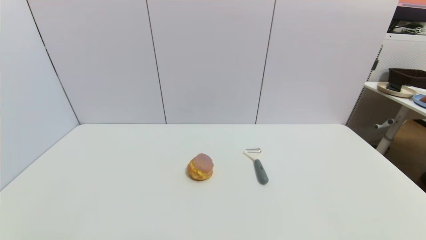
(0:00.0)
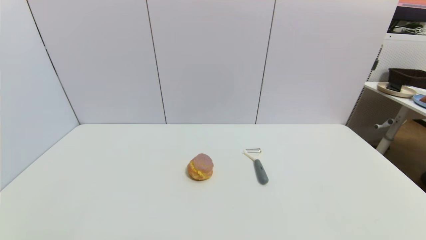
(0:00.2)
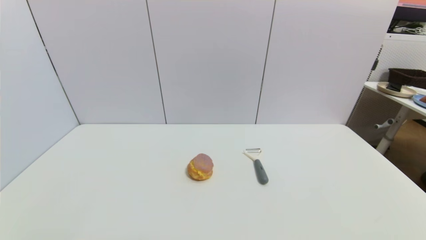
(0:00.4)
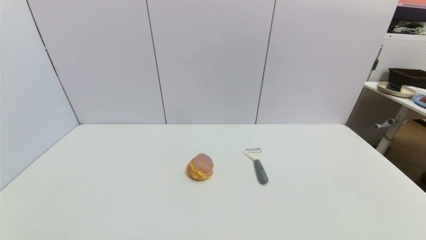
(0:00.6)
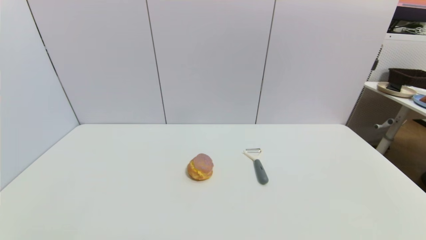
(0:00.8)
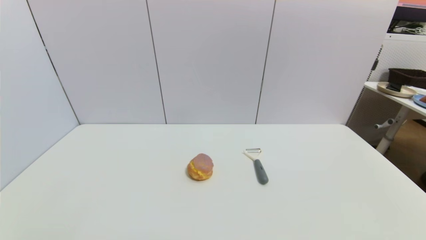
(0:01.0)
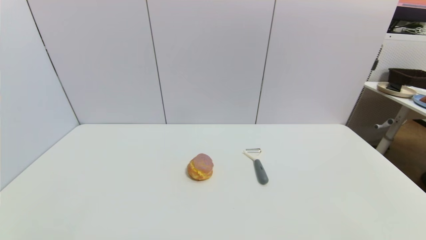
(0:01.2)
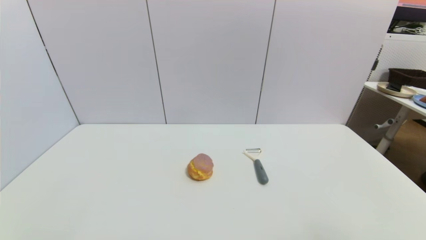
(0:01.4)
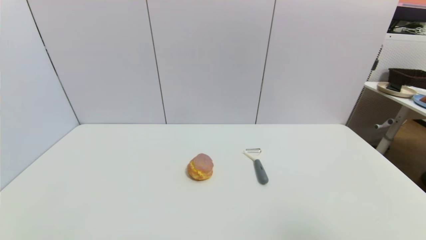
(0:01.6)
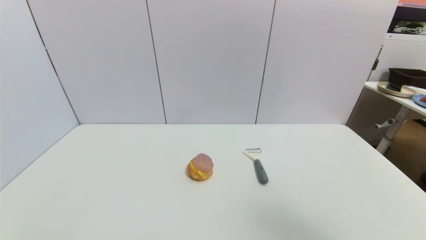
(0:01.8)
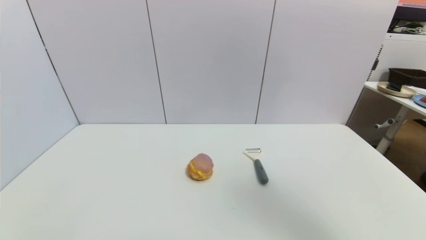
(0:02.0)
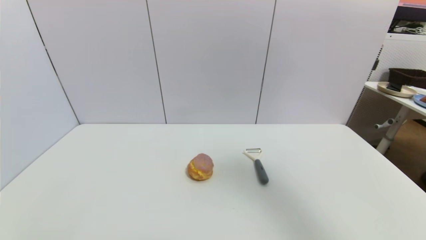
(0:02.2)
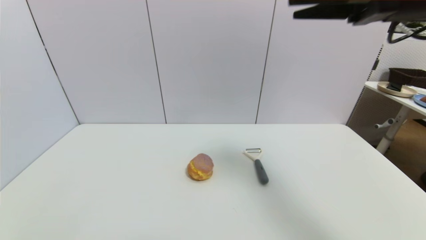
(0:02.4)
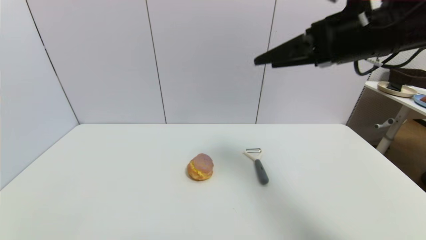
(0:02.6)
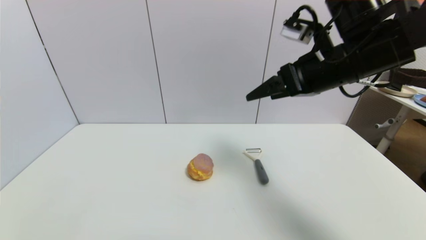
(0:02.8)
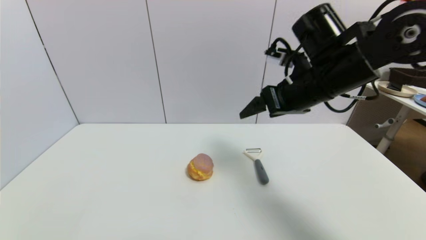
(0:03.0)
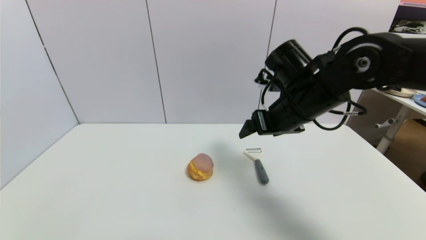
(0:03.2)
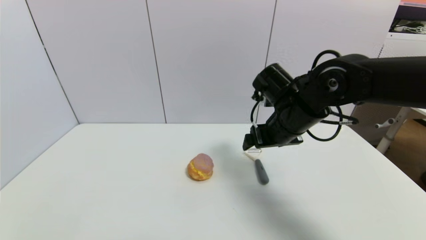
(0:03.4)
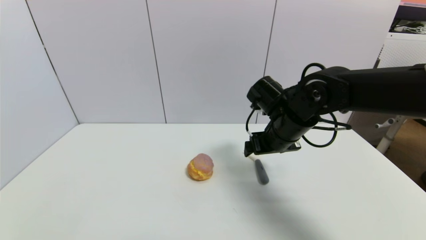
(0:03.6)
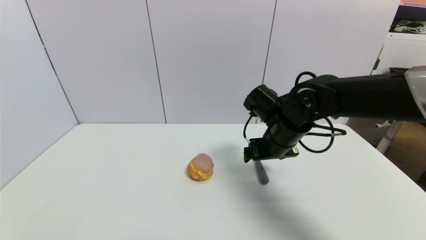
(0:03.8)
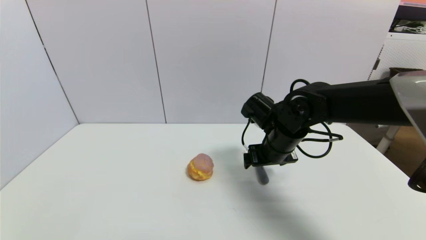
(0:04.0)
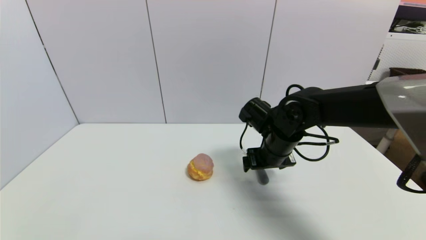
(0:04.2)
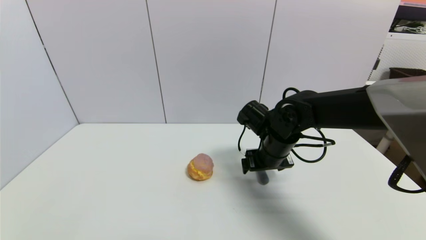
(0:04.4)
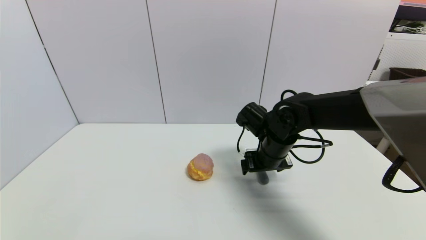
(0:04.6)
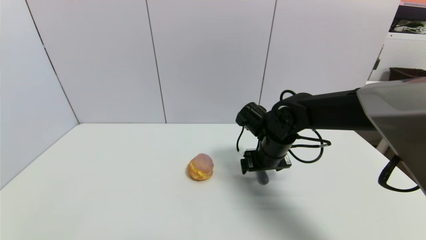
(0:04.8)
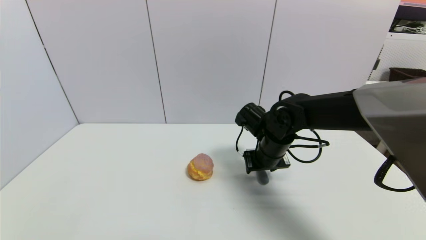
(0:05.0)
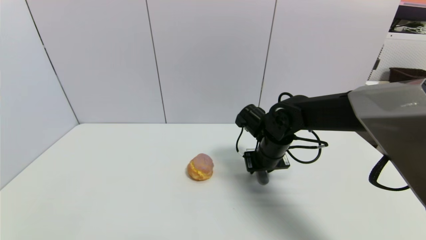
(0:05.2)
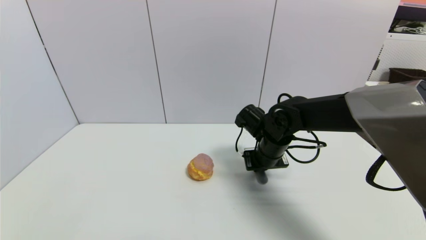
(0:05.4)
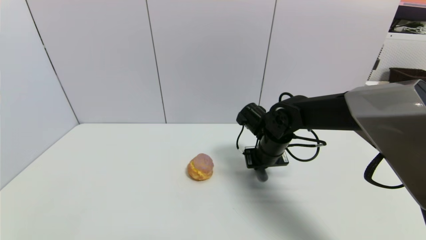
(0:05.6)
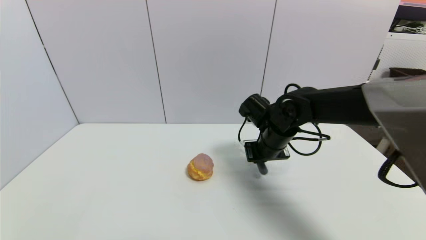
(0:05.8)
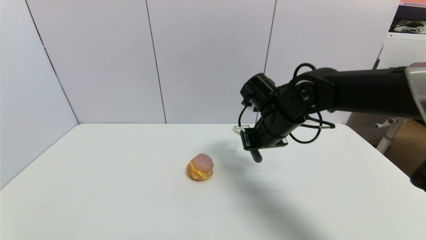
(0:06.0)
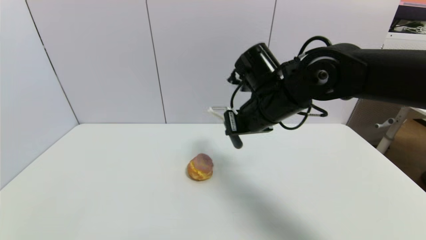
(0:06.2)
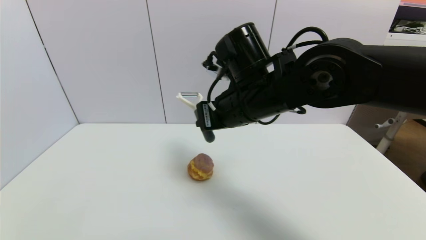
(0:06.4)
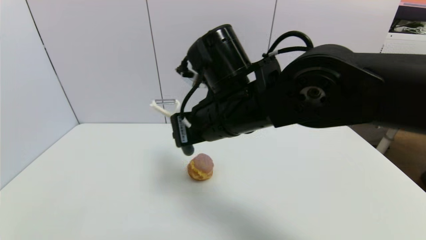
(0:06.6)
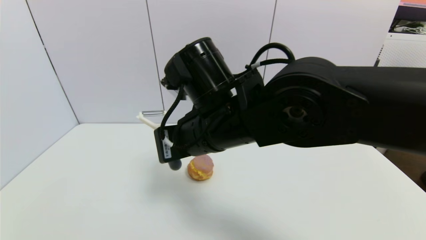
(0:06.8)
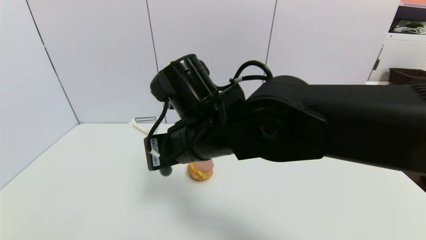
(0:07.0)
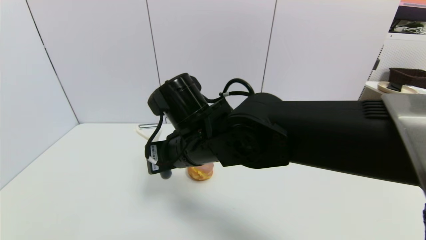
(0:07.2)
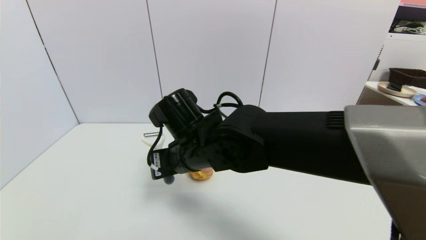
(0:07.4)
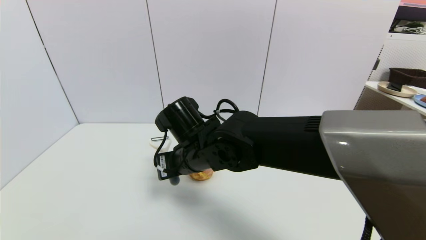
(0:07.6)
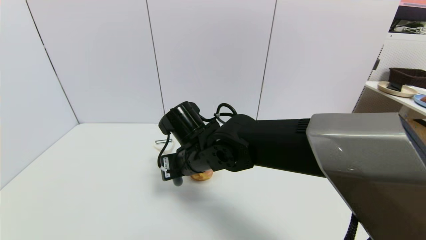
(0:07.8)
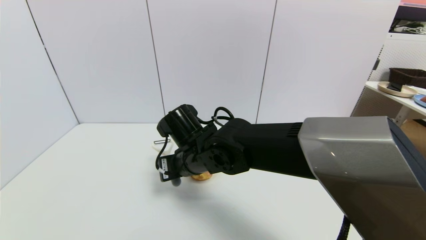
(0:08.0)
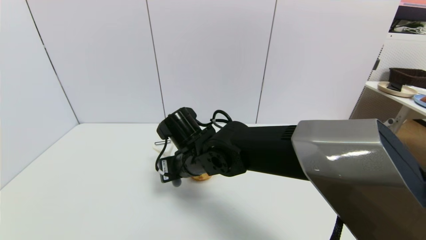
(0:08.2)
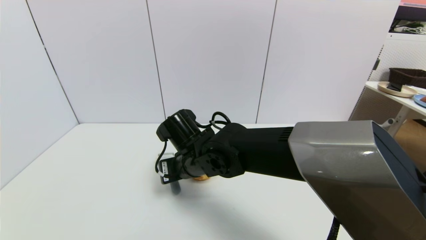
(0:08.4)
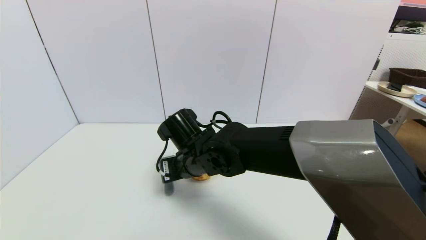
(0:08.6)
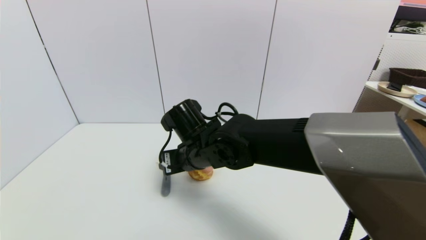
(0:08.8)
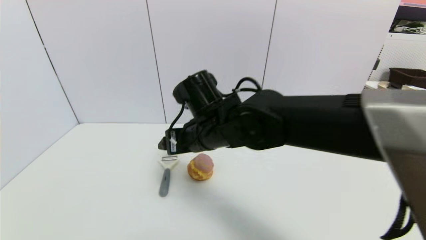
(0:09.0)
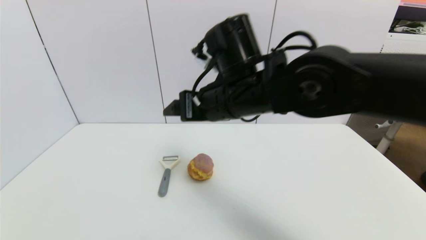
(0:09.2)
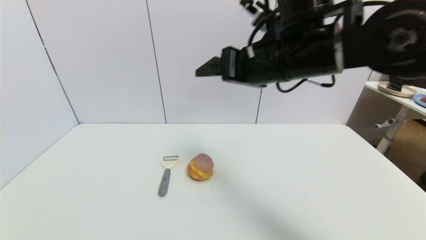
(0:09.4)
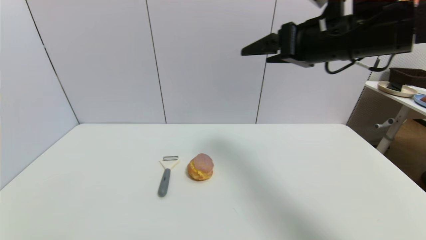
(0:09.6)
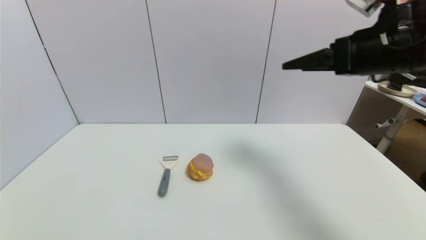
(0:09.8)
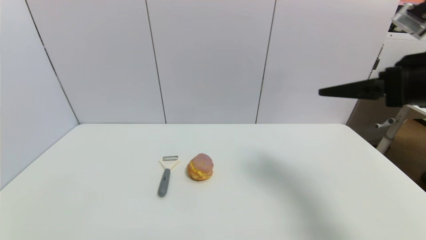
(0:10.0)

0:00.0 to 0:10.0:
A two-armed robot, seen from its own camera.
Step, 0:02.4 to 0:05.8: Grasp the peeler with right gripper.
Step, 0:06.0 to 0:08.8: Place the peeler on the table with right gripper.
0:01.4 to 0:02.8: The right gripper travels forward and to the left by approximately 30 cm.
0:02.8 to 0:04.2: The right gripper moves downward, some 15 cm.
0:04.2 to 0:05.8: The right gripper closes its fingers.
0:05.8 to 0:07.2: The right gripper goes some 20 cm to the left and backward.
0:07.2 to 0:08.6: The right gripper travels downward by roughly 5 cm, and opens its fingers.
0:08.6 to 0:10.0: The right gripper moves to the right and upward, approximately 40 cm, and opens.

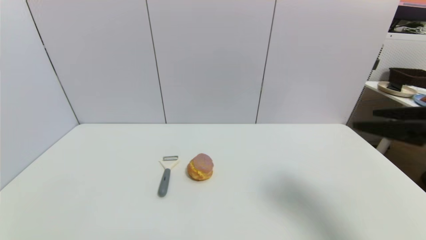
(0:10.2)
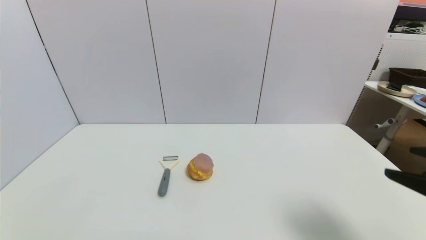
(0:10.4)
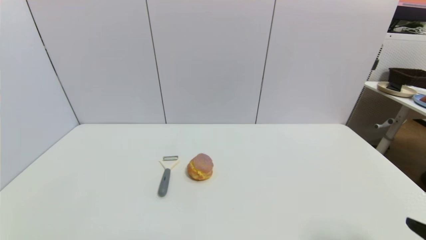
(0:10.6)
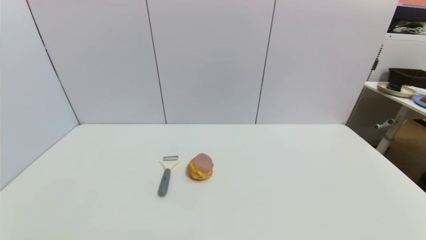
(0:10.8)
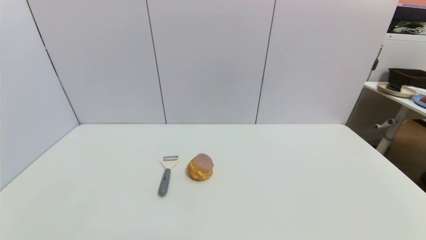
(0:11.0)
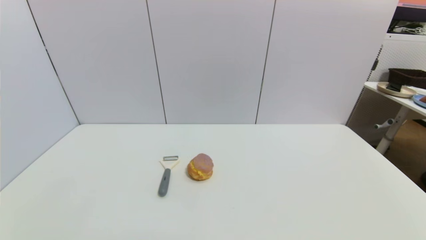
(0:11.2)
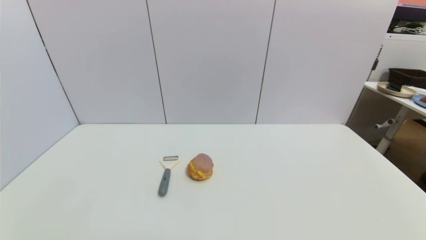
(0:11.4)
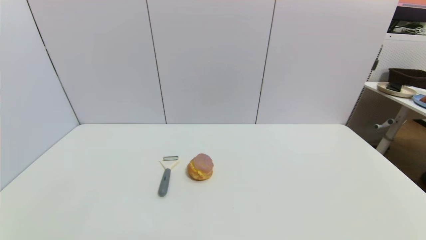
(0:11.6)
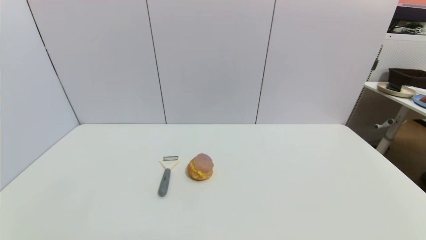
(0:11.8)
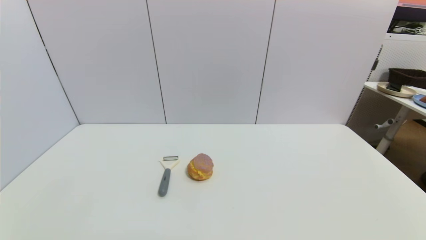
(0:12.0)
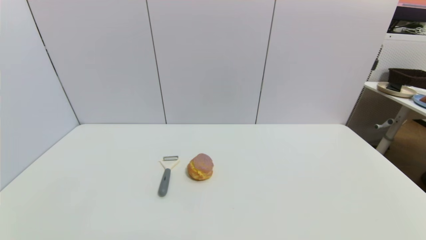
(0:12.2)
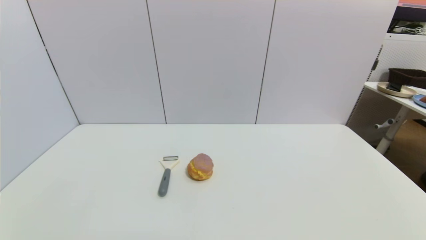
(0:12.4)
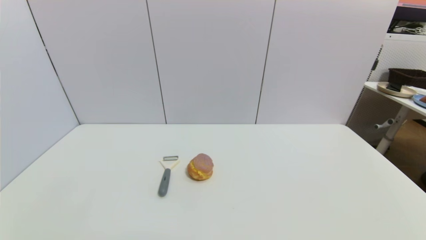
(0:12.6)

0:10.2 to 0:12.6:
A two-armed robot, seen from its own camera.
0:10.2 to 0:11.4: The right gripper moves downward and backward, some 25 cm.
